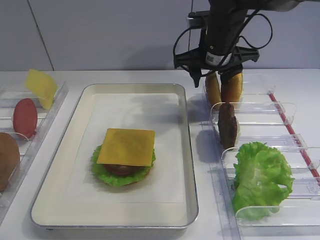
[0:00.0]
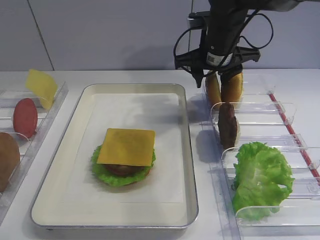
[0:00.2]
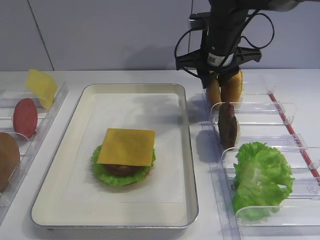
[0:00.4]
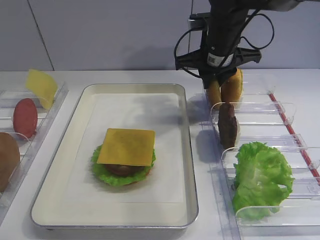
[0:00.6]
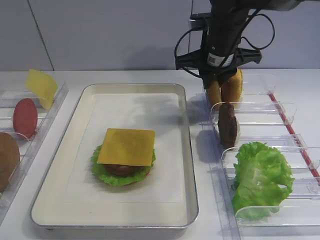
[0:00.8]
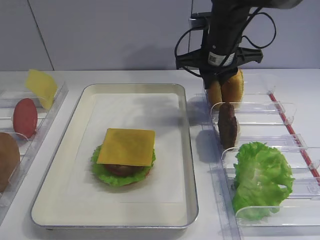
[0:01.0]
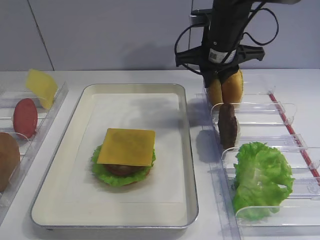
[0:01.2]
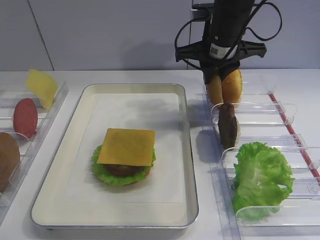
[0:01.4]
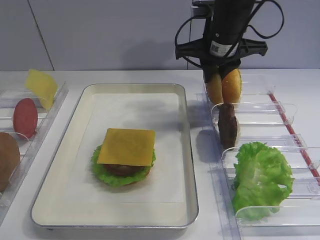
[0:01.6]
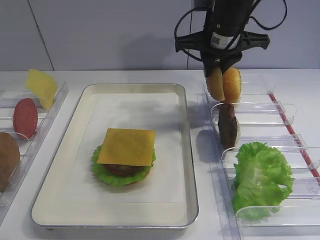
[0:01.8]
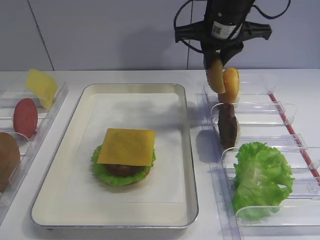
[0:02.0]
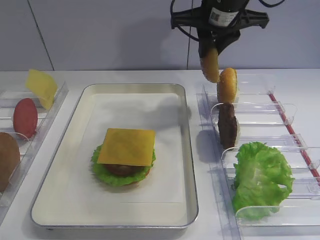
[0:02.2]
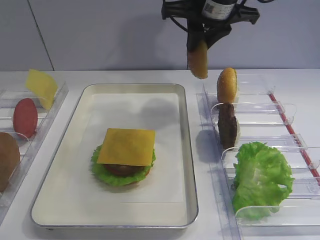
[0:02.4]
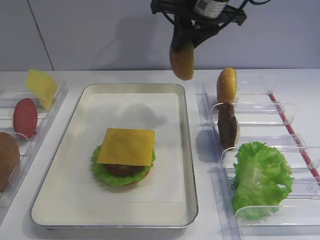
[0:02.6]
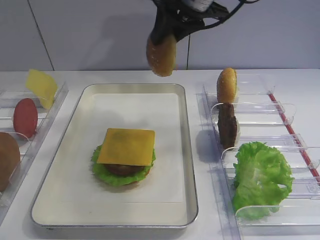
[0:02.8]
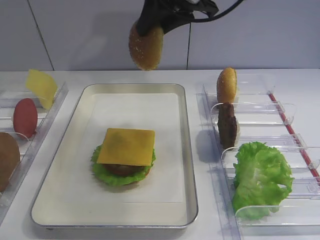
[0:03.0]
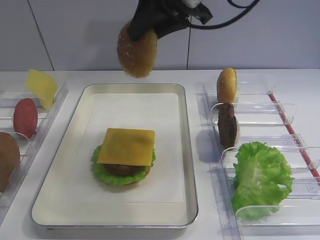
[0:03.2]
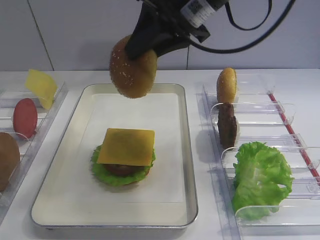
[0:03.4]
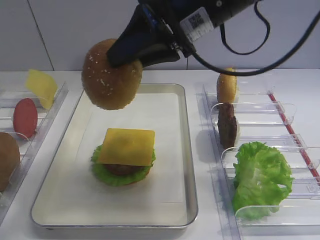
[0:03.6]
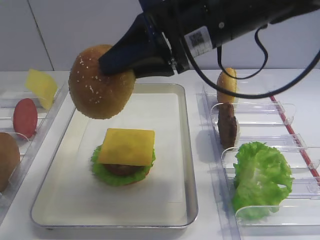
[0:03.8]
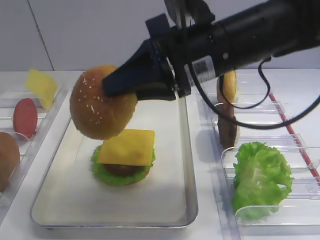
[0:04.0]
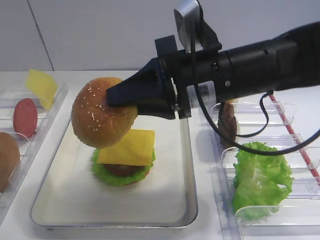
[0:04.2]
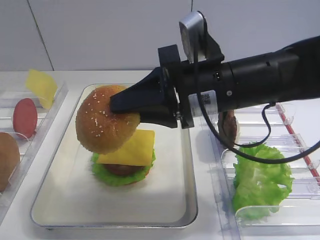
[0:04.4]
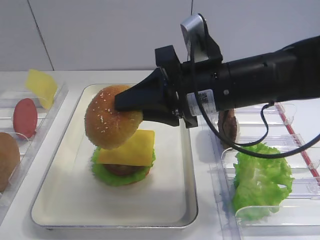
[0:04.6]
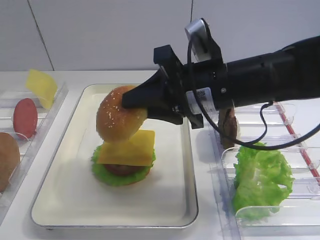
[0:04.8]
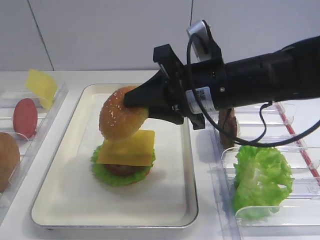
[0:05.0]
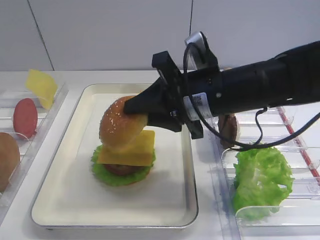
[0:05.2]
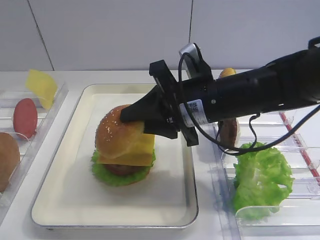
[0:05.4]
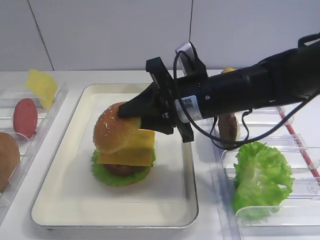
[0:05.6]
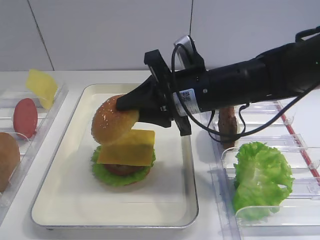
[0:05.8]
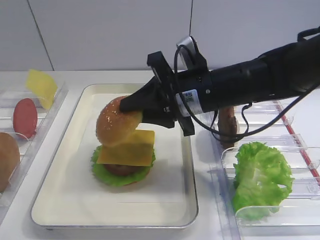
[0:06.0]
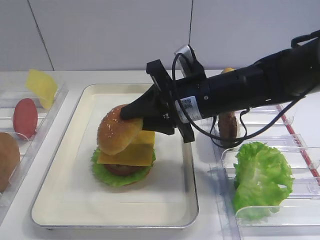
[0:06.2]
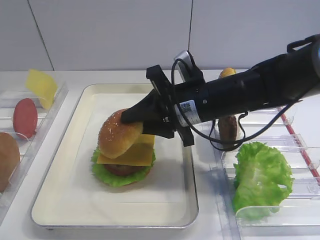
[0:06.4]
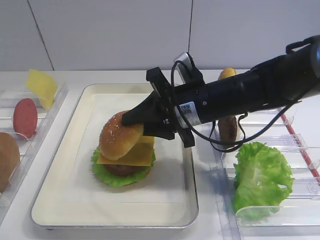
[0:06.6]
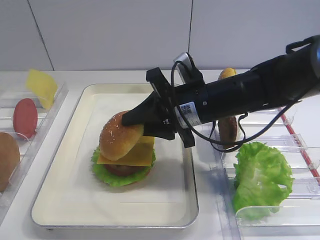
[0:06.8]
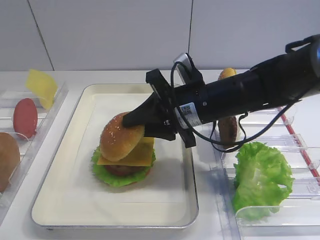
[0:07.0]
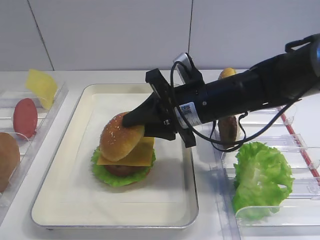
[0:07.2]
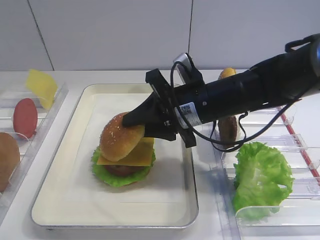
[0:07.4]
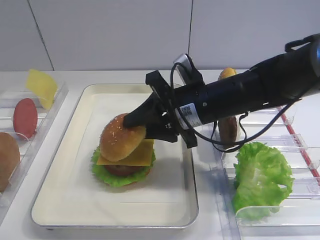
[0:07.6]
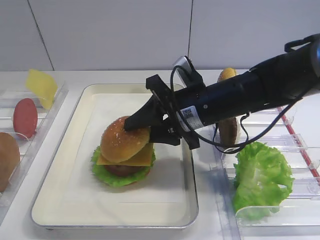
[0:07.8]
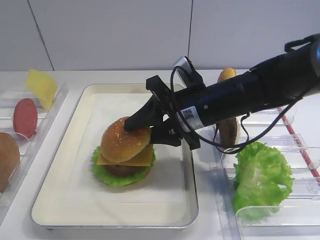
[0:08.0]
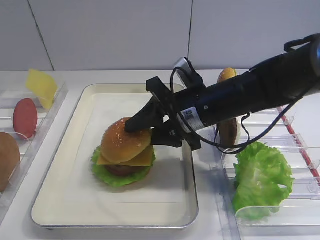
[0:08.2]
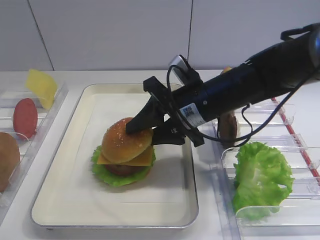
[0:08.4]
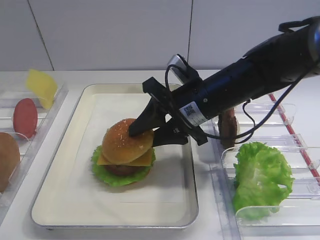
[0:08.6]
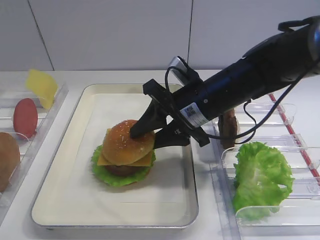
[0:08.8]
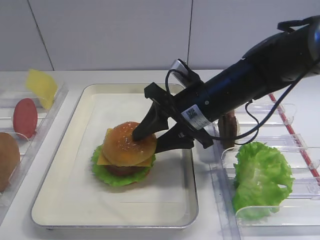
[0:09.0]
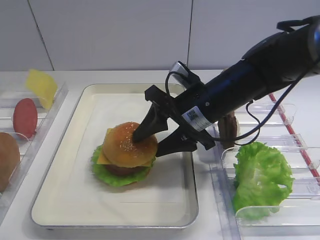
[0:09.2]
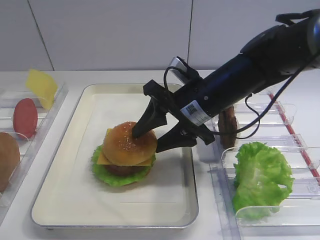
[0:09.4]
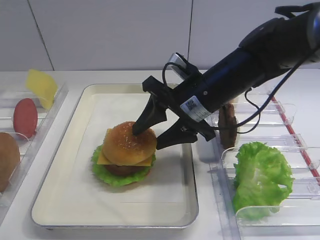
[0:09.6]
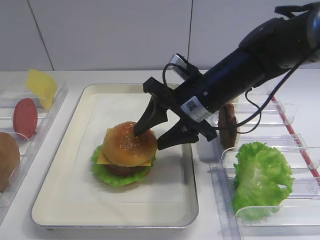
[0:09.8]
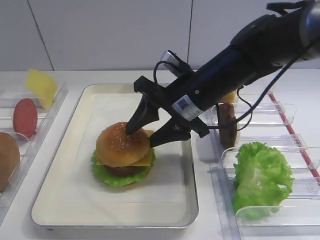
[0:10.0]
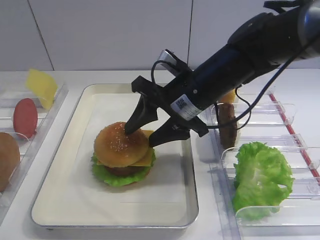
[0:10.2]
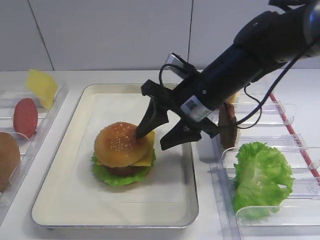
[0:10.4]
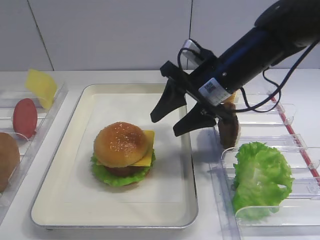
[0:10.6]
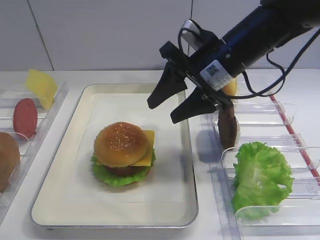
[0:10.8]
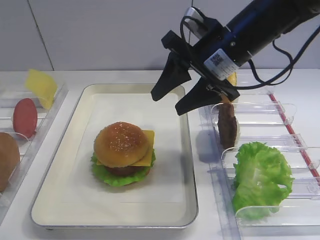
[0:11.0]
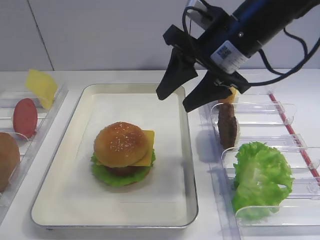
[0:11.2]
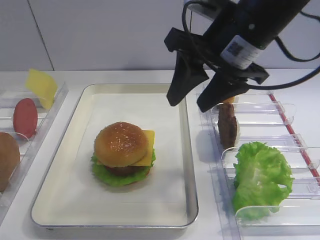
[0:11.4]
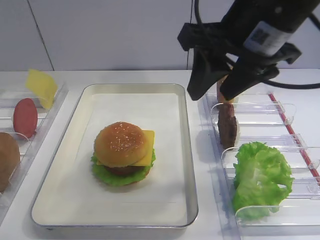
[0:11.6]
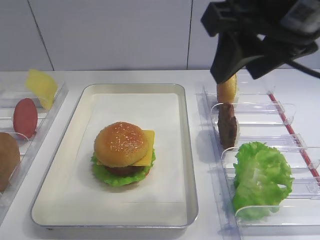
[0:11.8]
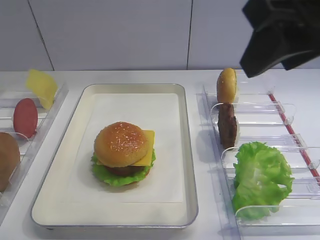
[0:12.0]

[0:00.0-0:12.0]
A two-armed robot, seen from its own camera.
Step, 0.0 to 2.0 s: Pick up the hamburger lid with the right gripper.
Step, 2.2 to 10.8 s: Place the hamburger lid on the cheese slice with the right gripper.
0.0 to 1.6 s: The right gripper closes its fingers.
1.6 to 3.0 s: The right gripper shifts roughly 10 cm upward.
3.0 to 4.4 s: The right gripper is displaced backward and downward by some 15 cm.
4.4 to 6.0 s: The right gripper shifts by about 5 cm.
6.0 to 7.6 s: There are only small adjustments of the grippers.
7.6 to 9.0 s: The grippers stay close to where they were, moving slightly.
9.0 to 10.4 s: The grippers stay close to where they were, moving slightly.
10.4 to 12.0 s: The right gripper moves upward, backward and to the right, about 25 cm.

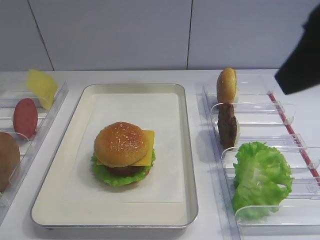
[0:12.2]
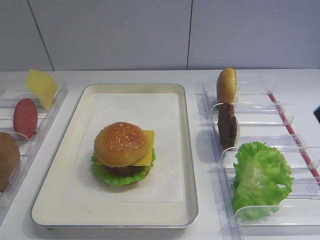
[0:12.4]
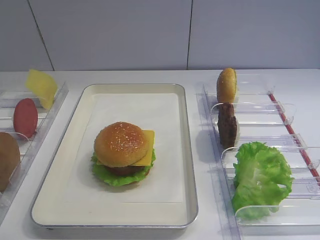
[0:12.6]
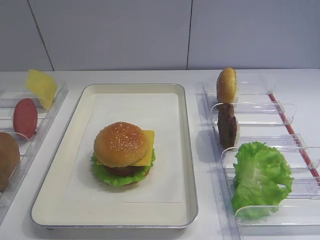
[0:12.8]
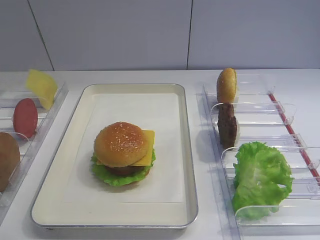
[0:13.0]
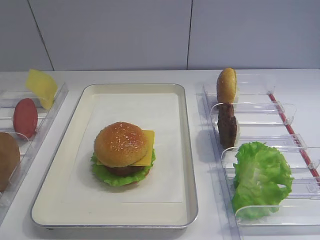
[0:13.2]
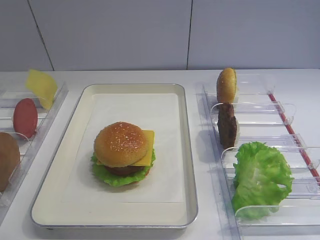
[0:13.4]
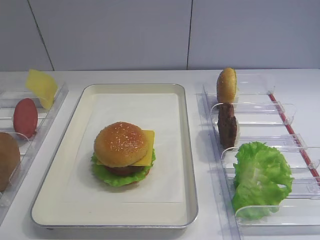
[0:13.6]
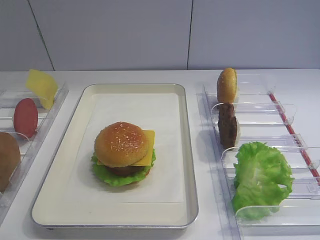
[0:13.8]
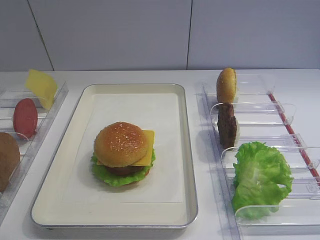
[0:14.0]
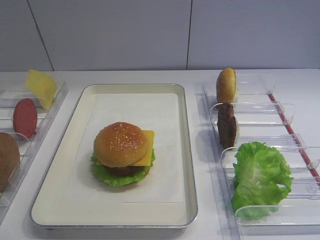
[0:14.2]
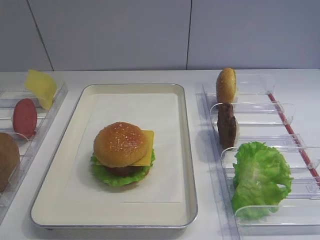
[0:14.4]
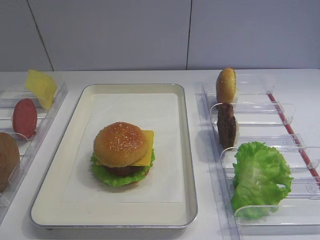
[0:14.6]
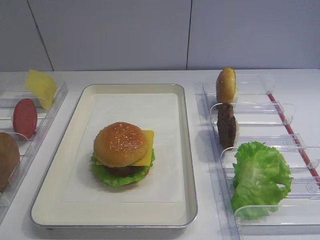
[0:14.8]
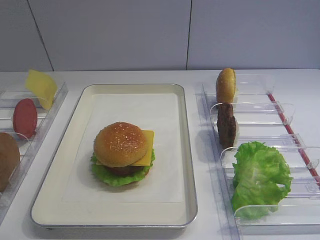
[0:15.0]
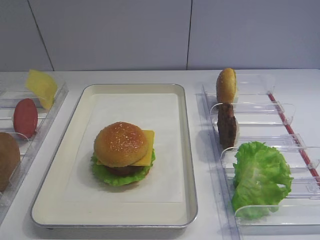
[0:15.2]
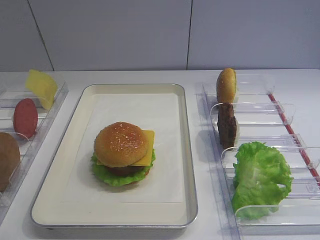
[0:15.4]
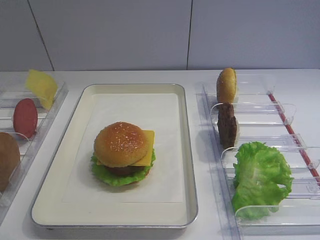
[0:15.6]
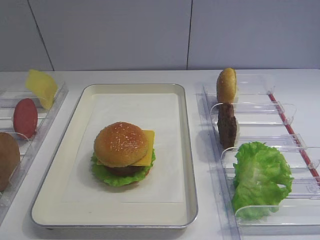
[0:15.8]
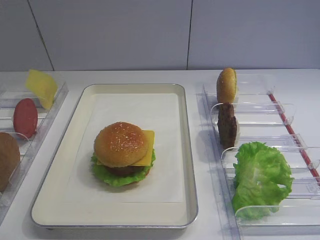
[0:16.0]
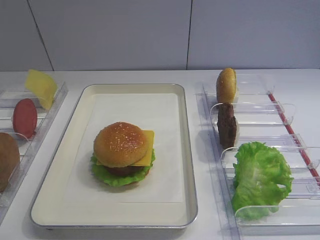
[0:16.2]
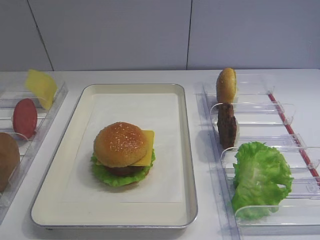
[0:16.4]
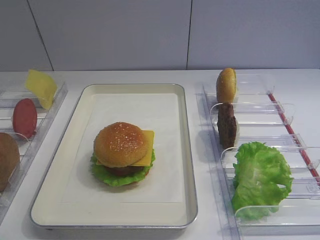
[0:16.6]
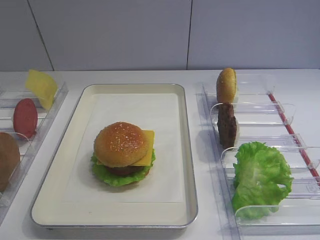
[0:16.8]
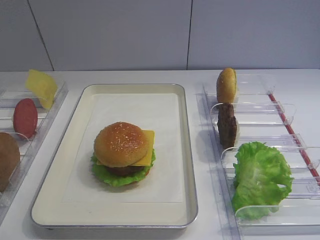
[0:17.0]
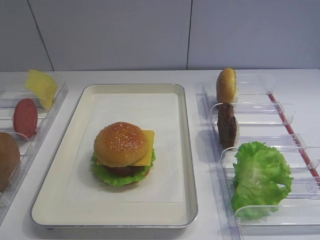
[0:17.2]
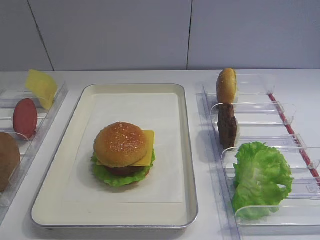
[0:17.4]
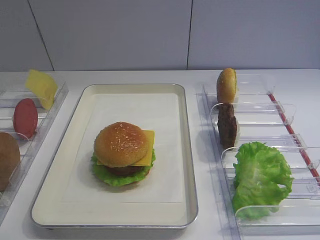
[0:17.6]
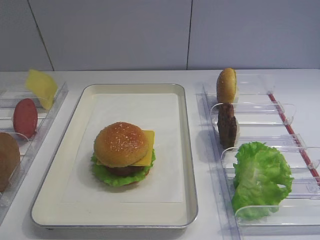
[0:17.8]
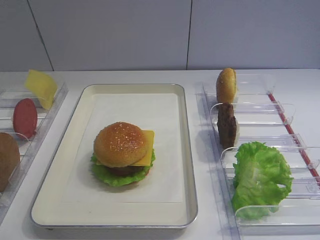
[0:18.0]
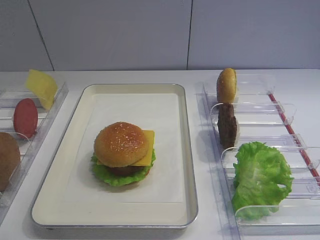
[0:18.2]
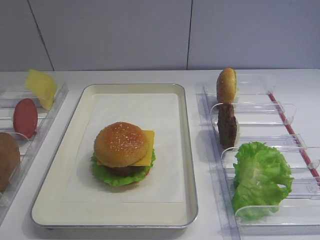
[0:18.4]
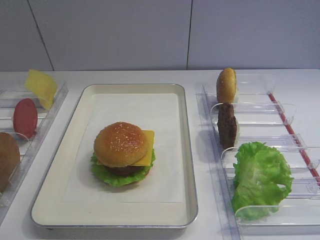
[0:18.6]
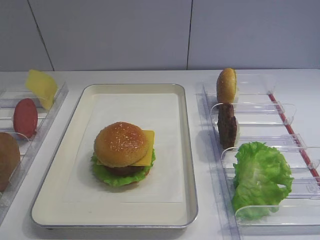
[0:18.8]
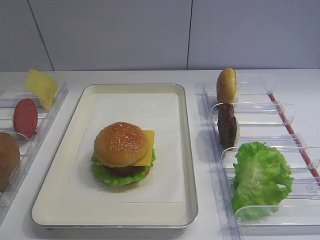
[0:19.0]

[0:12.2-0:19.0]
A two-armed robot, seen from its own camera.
12.2 to 13.6 s: The right gripper goes about 20 cm backward, downward and to the right, and closes up.
15.0 to 16.2 s: Both grippers stay about where they are.
17.6 to 19.0 s: Neither gripper changes place.

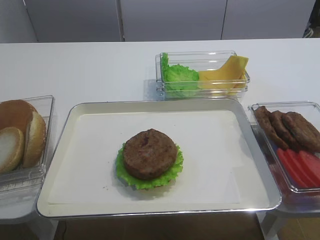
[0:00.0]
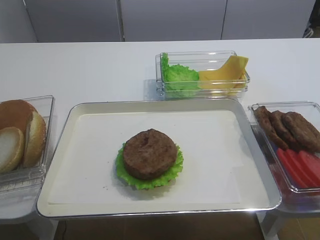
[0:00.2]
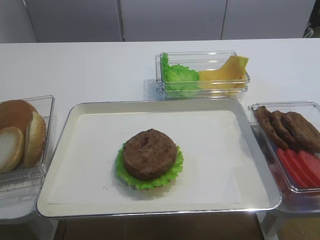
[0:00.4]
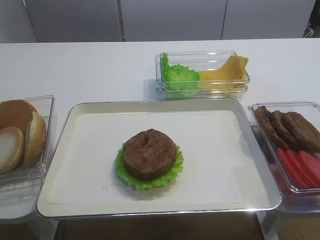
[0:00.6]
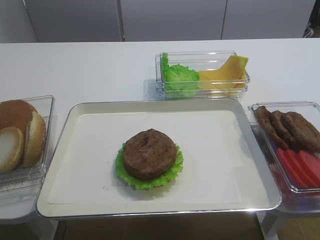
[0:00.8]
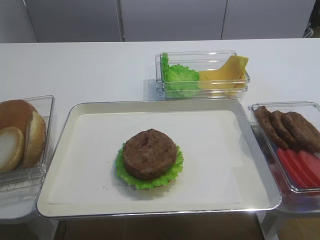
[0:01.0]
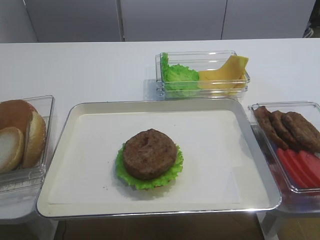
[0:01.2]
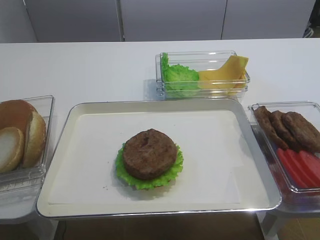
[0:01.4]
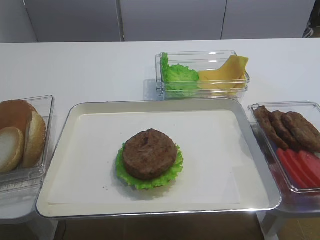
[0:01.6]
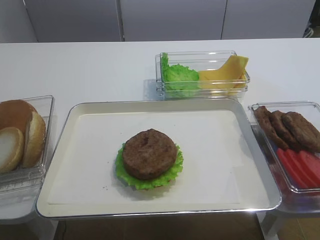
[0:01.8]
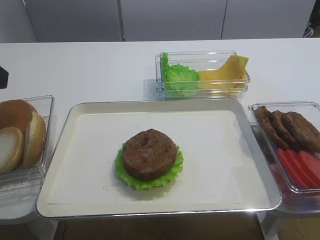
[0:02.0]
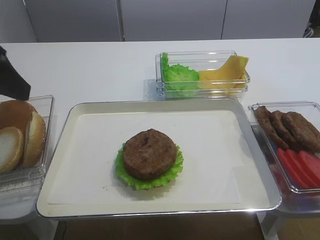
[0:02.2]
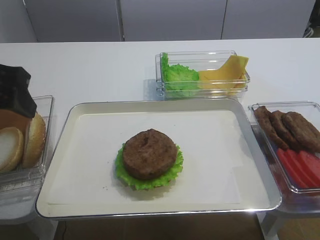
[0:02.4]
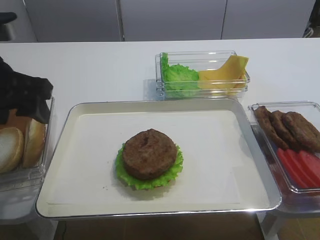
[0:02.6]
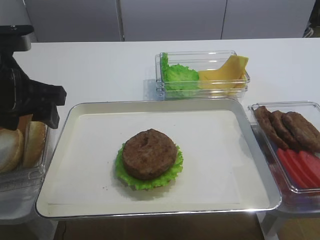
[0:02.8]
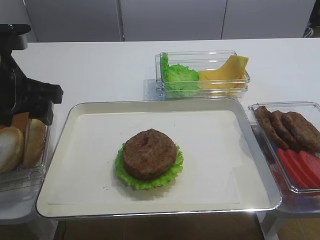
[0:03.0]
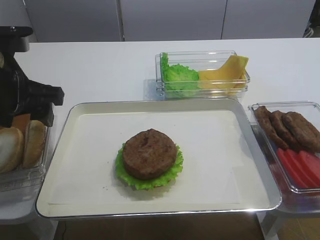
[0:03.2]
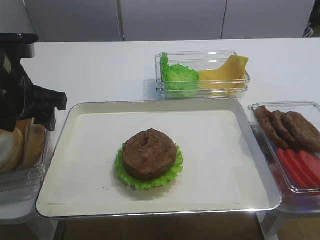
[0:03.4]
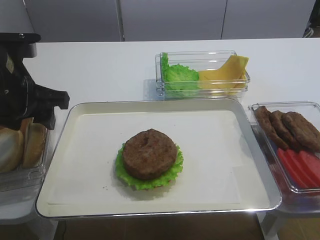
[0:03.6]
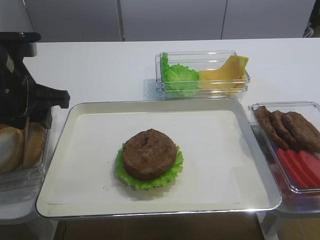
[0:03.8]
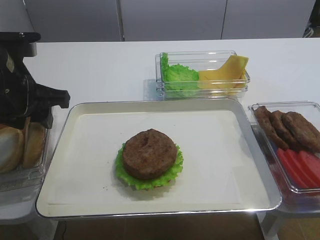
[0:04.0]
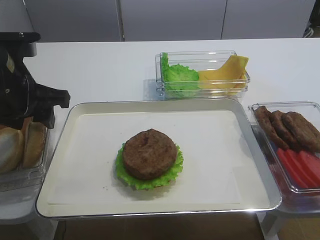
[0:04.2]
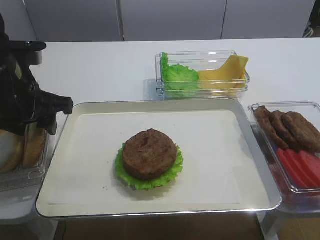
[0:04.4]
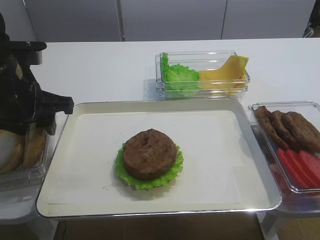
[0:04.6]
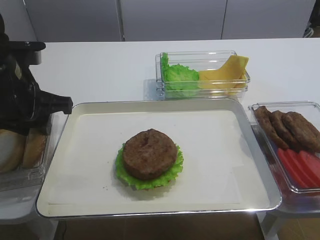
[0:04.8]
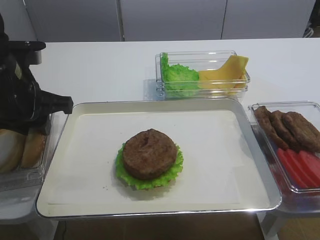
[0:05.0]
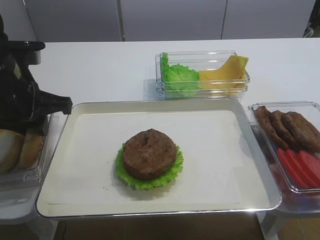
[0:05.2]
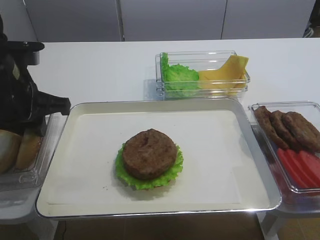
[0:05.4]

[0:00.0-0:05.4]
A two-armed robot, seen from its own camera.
1.4 to 2.8 s: The left gripper moves forward, roughly 20 cm.
2.8 to 4.0 s: The left gripper closes up.
4.0 to 5.4 s: The two grippers keep their place.
